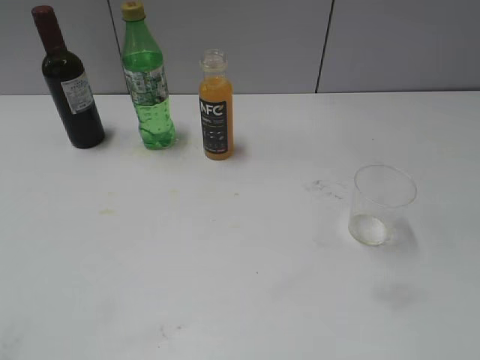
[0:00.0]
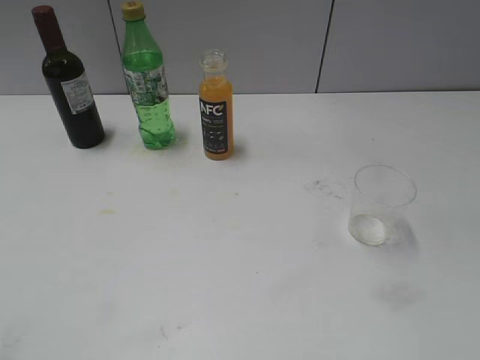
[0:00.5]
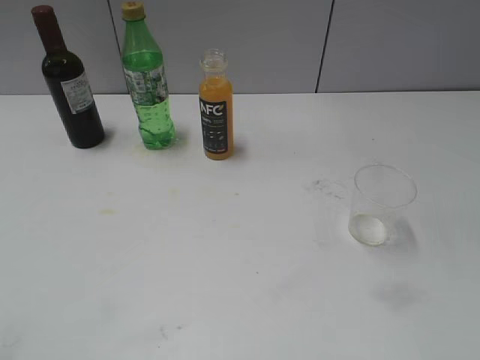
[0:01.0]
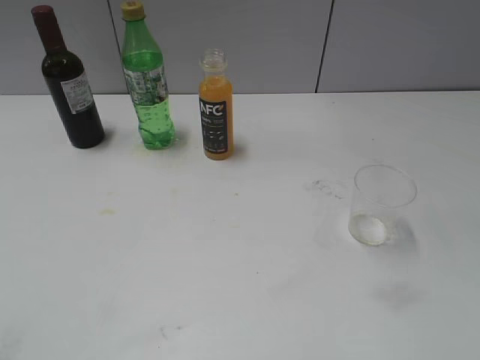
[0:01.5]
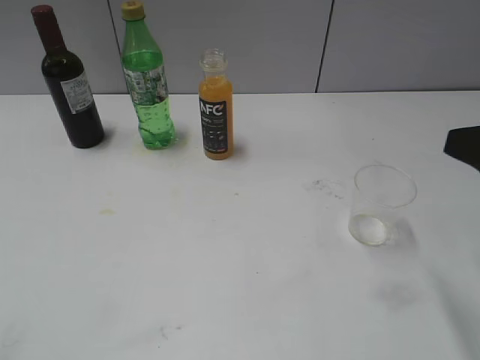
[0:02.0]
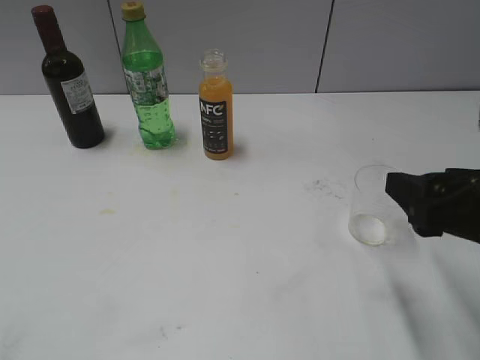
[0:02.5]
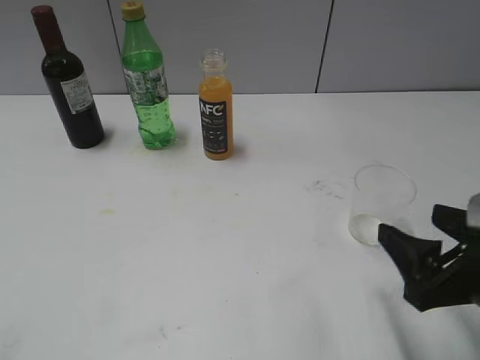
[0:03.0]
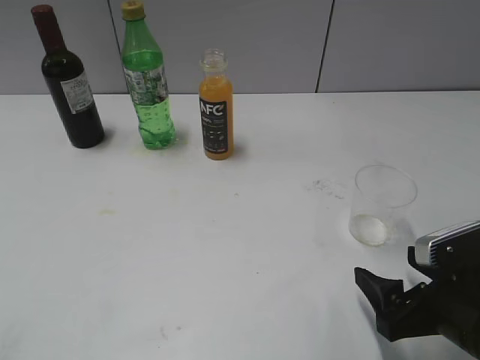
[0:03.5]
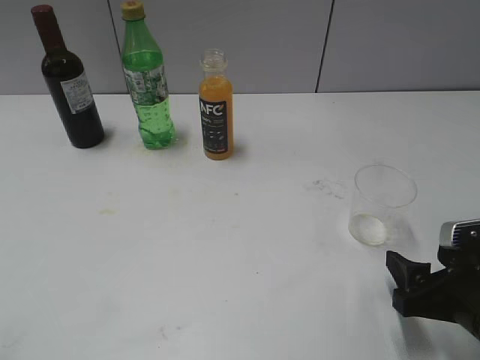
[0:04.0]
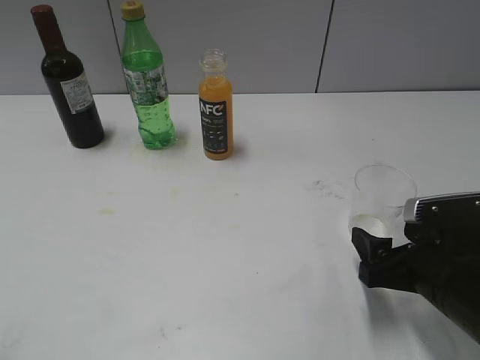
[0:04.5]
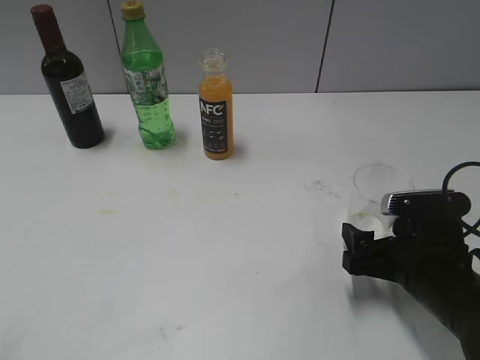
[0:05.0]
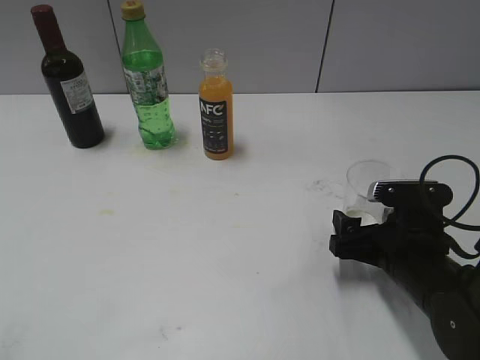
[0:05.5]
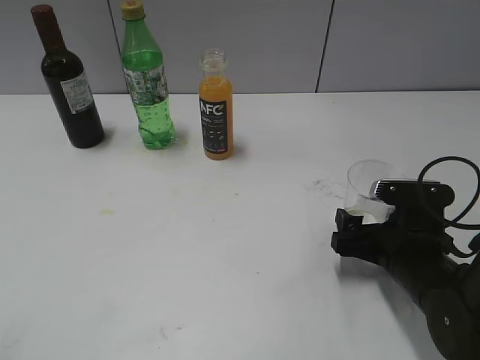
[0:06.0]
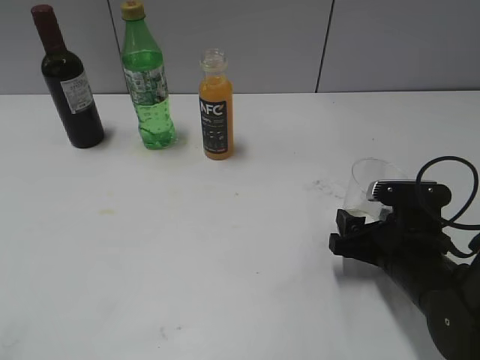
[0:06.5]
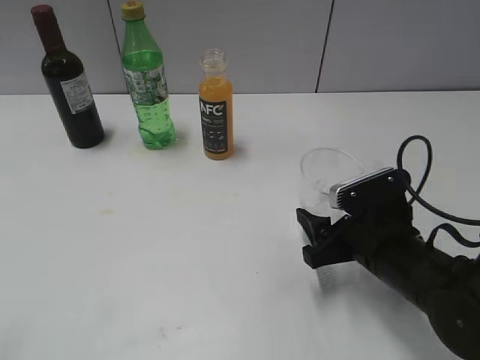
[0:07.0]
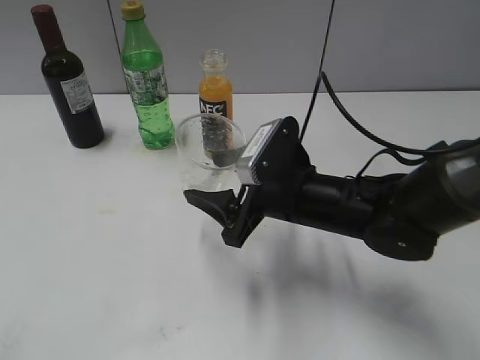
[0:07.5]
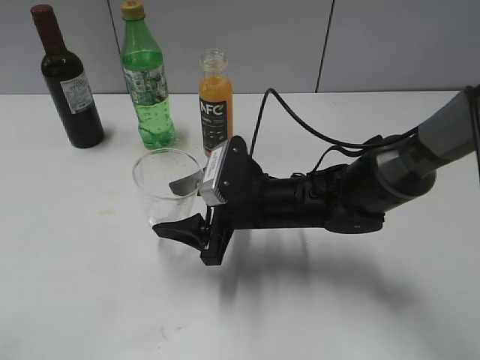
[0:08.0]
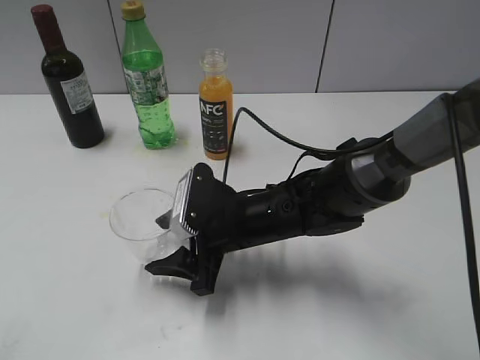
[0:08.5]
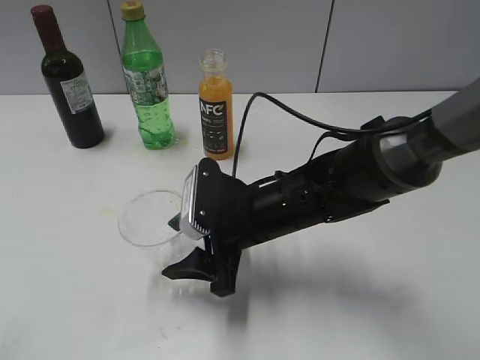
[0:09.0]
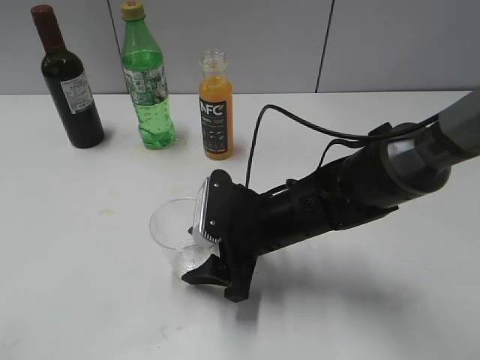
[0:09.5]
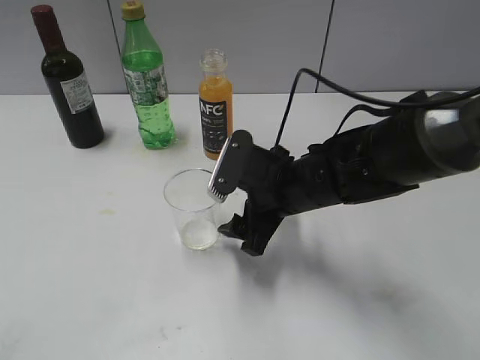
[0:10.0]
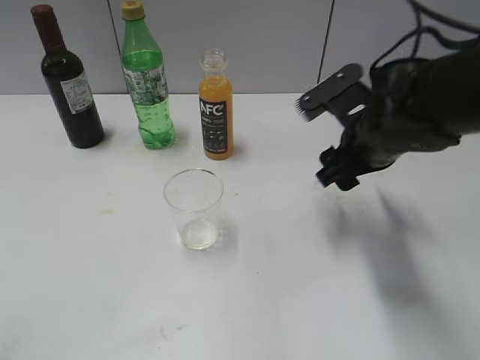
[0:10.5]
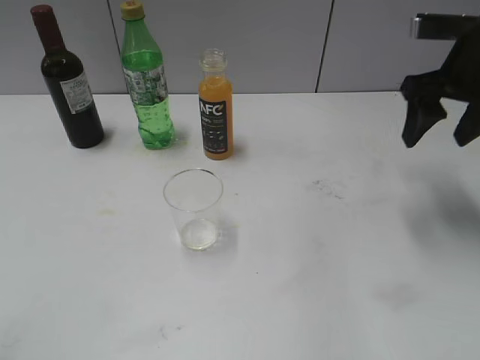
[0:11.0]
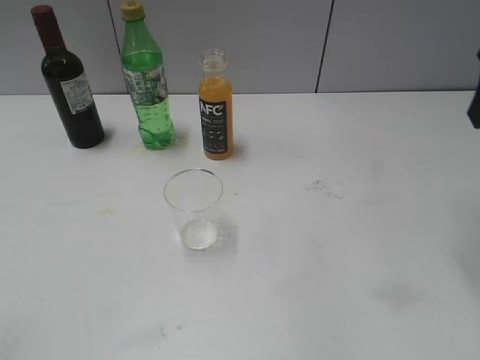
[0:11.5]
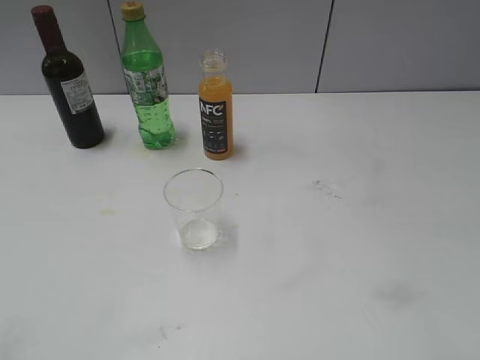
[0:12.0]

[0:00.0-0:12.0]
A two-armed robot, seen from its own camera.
Step, 0:02.0 to 0:06.0: Grasp the transparent cup with right gripper.
Step, 0:06.5 to 0:10.0: Place the transparent cup on the table with right gripper.
0:02.0 to 0:04.0: The right gripper is displaced downward by some 15 cm, and closes its fingers.
0:04.0 to 0:06.0: The right gripper shifts roughly 10 cm forward, and opens up.
0:06.0 to 0:08.0: The right gripper heads to the left, covering approximately 15 cm, and closes its fingers.
0:08.0 to 0:10.0: The right gripper opens up.
0:10.0 to 0:12.0: The right gripper travels to the right, upward and backward by roughly 35 cm, and closes up.

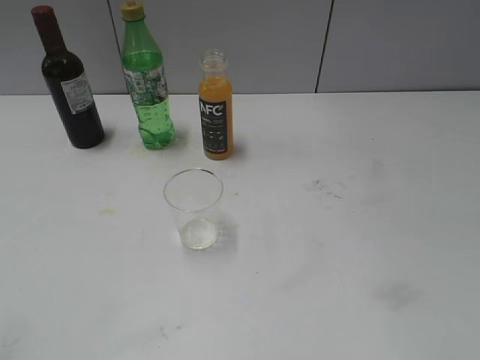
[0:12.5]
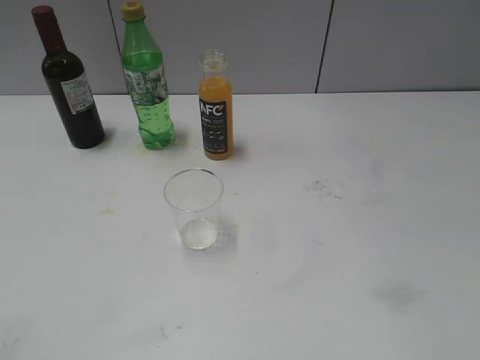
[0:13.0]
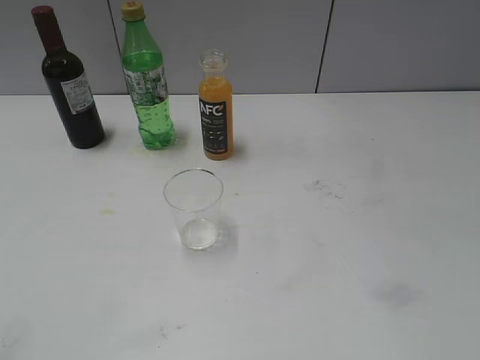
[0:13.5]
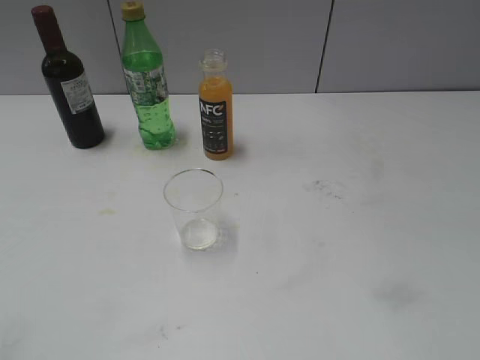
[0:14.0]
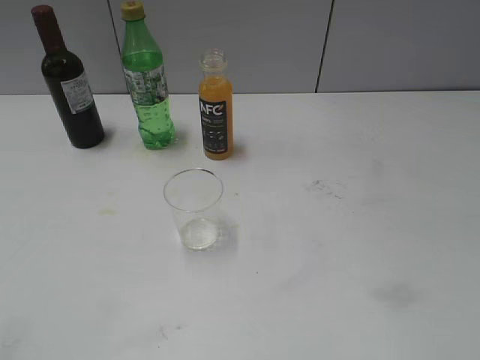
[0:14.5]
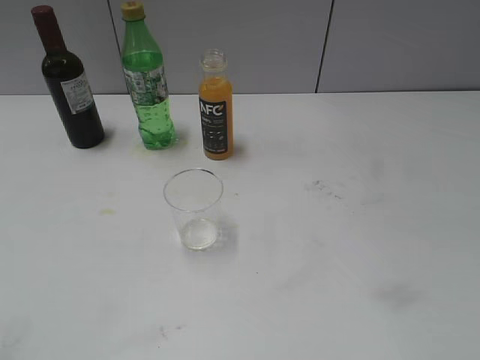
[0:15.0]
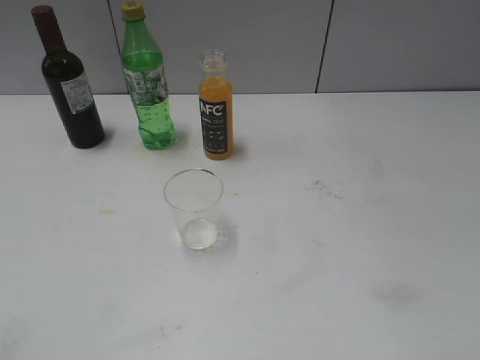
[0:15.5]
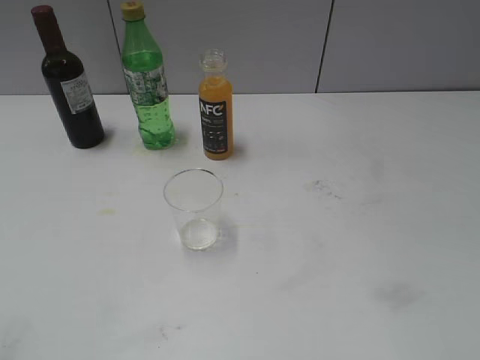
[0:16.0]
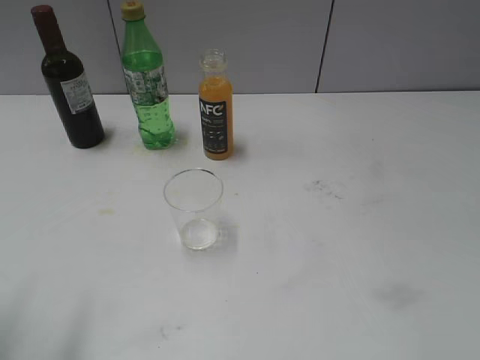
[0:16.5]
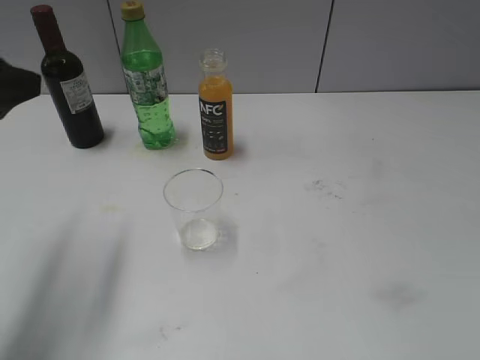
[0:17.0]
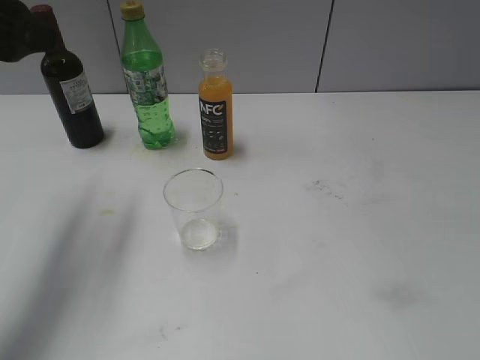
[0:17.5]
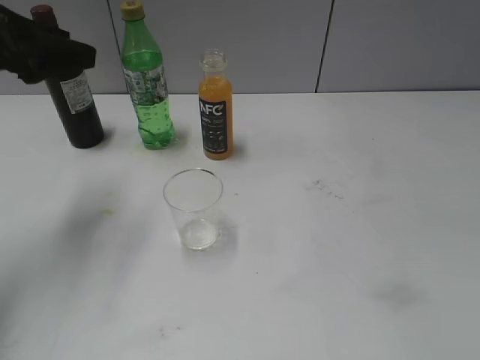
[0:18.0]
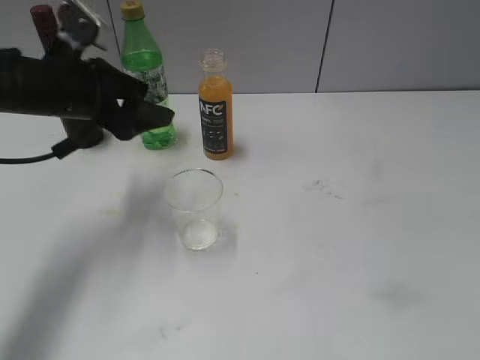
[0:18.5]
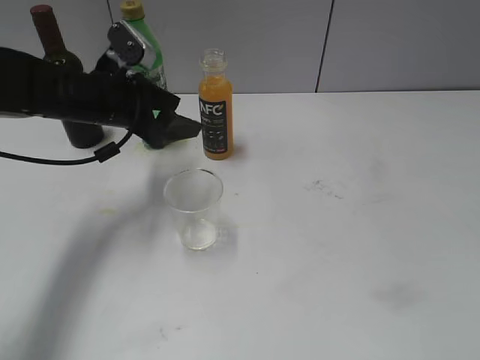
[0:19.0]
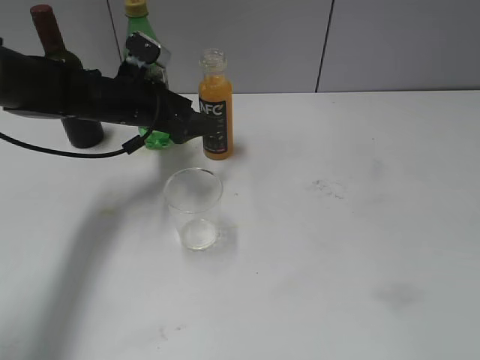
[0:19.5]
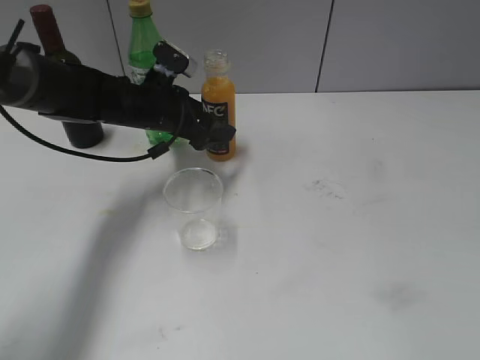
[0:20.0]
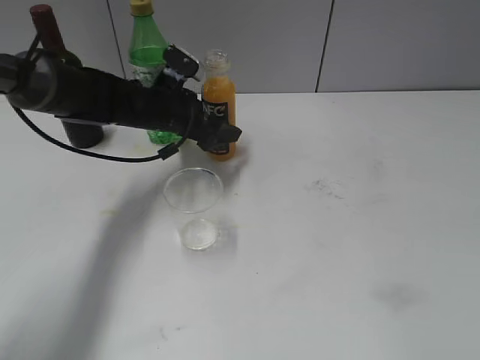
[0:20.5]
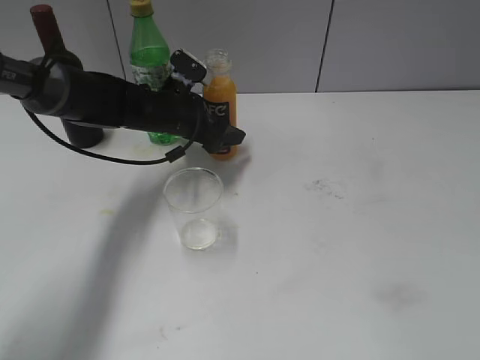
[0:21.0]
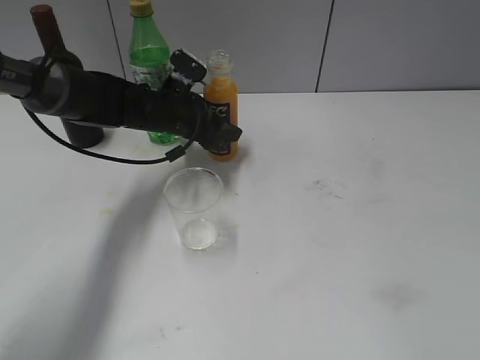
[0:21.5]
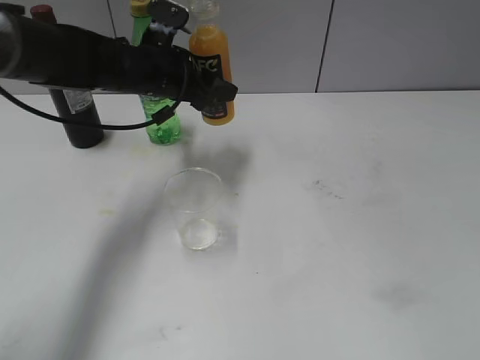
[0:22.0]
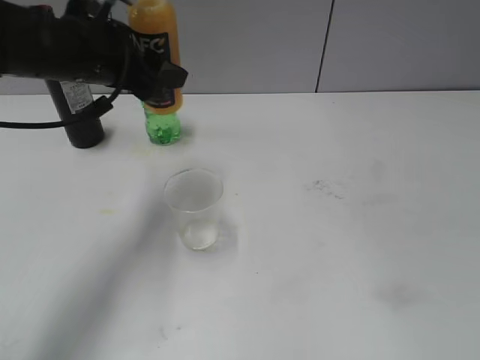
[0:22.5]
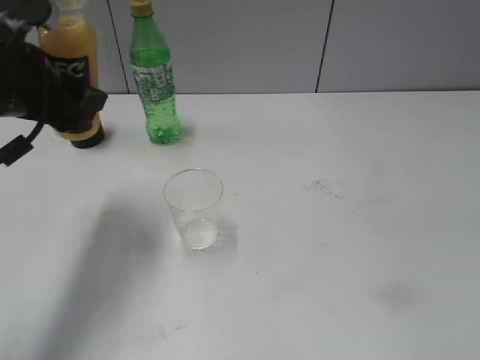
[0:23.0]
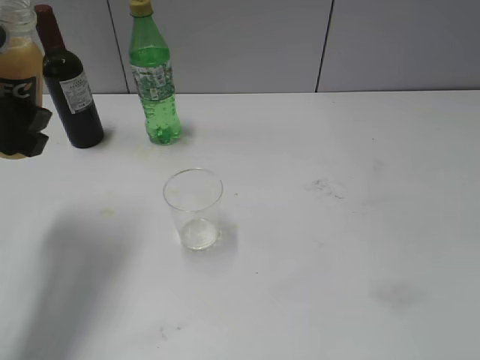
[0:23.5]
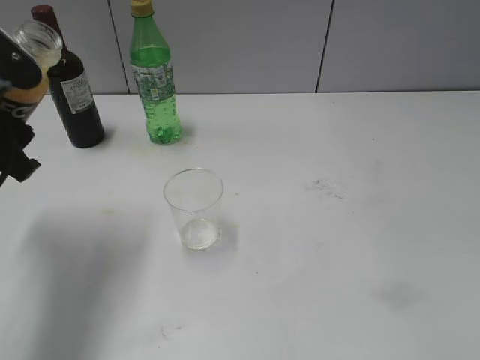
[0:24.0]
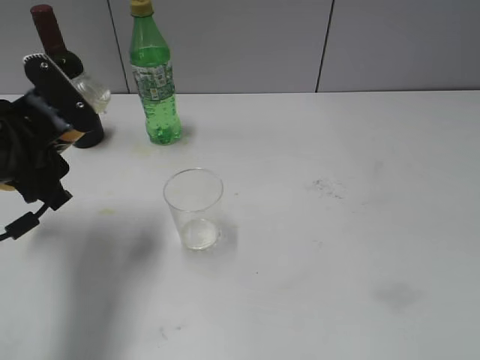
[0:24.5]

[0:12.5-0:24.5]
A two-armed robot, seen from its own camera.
Step, 0:12.5 to 0:21.0: Grasp the bottle with orange juice with left gripper.
0:16.5 to 0:18.5: The left gripper heads forward and downward, covering about 25 cm.
0:18.5 to 0:20.5: The left gripper travels to the right, downward and forward by about 15 cm, and opens.
0:20.5 to 0:22.5: The left gripper travels upward and backward by roughly 15 cm, and closes up.
0:22.5 to 0:24.5: The left gripper heads backward, to the left and downward, covering about 10 cm.

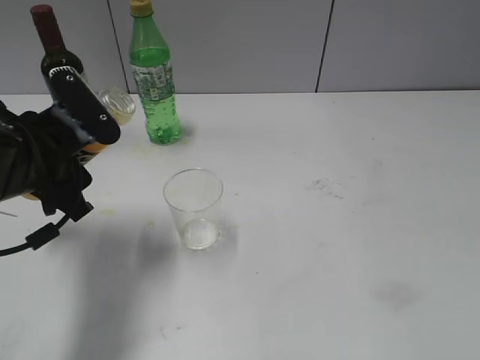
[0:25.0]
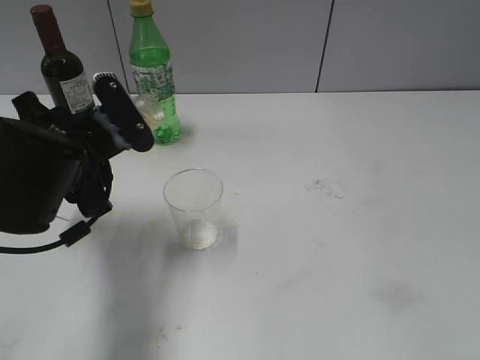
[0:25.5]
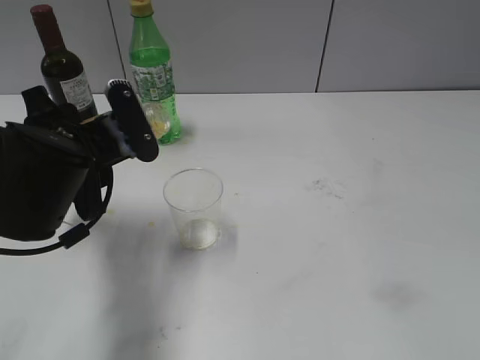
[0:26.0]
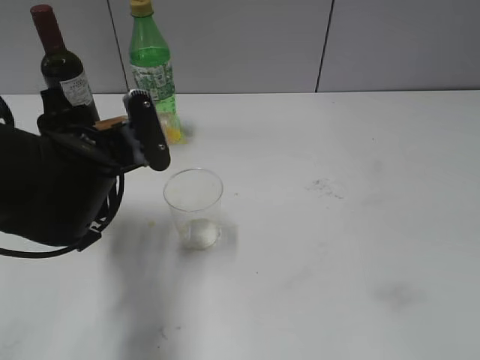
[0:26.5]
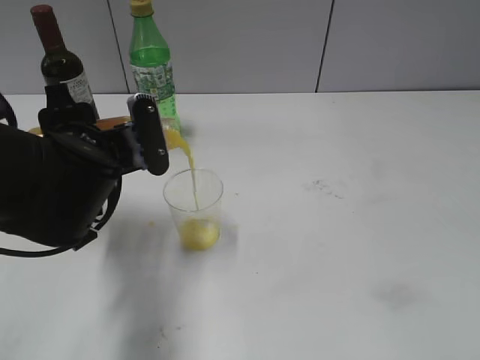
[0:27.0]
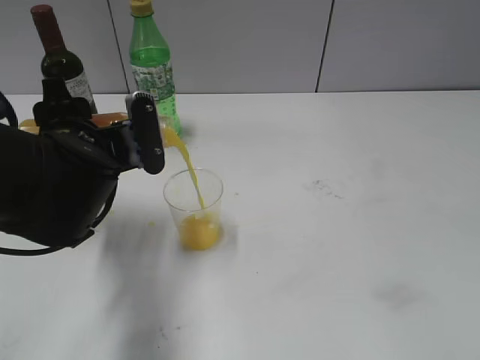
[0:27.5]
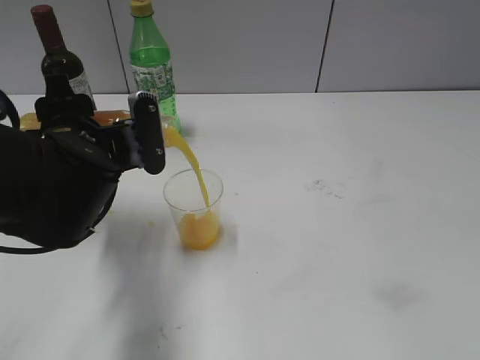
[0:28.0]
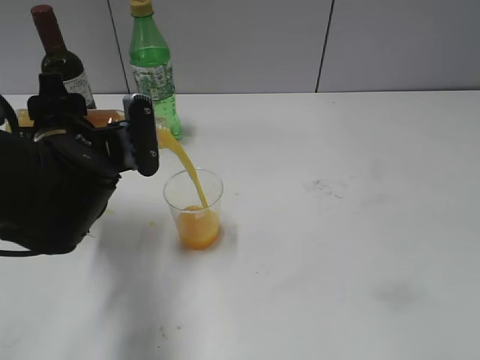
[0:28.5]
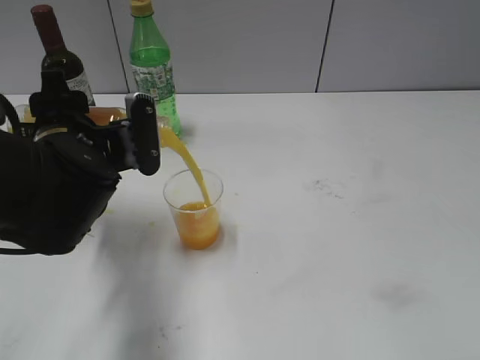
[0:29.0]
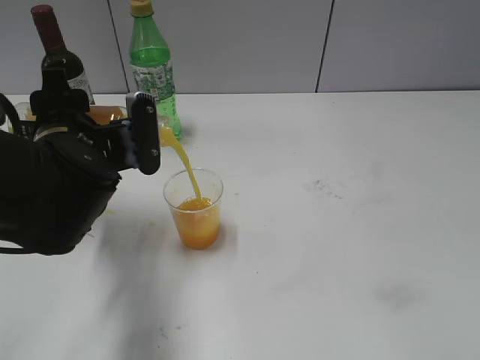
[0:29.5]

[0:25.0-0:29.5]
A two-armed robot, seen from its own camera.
0:27.0 to 0:29.5: There are only small adjustments of the grippers.
